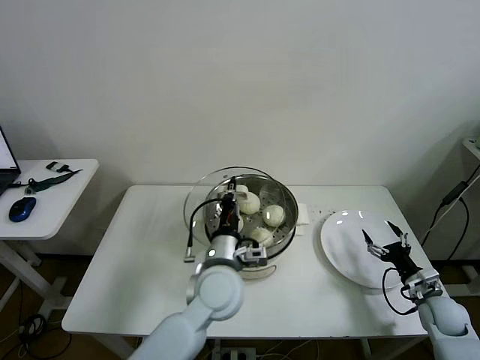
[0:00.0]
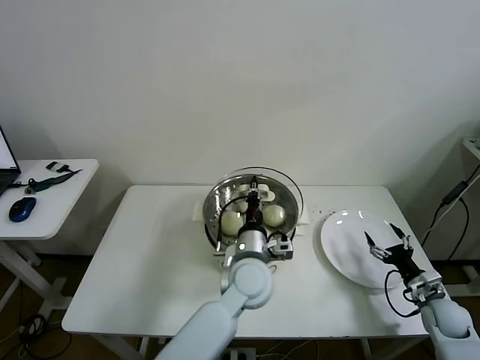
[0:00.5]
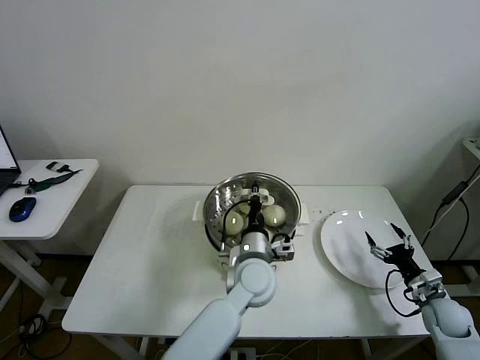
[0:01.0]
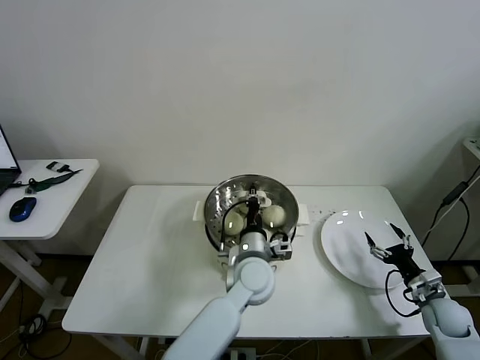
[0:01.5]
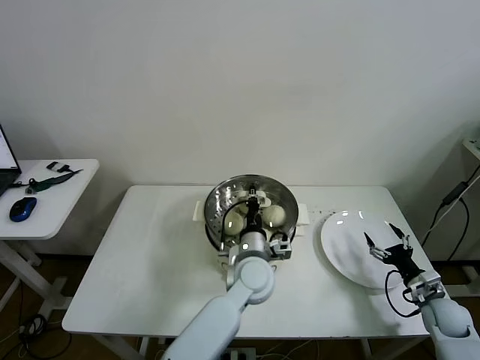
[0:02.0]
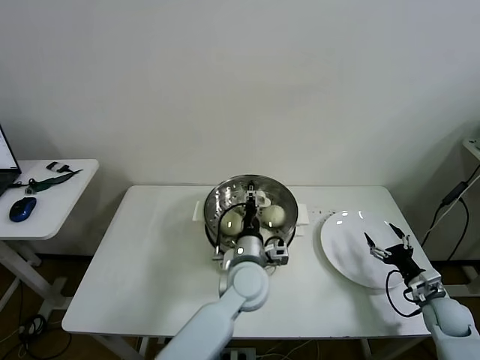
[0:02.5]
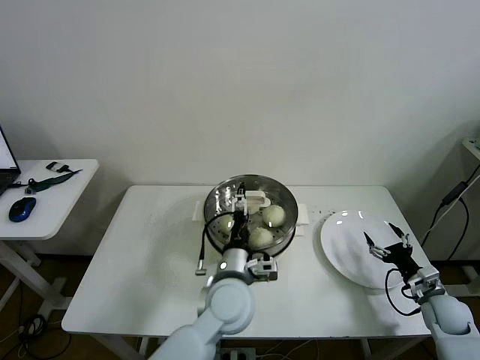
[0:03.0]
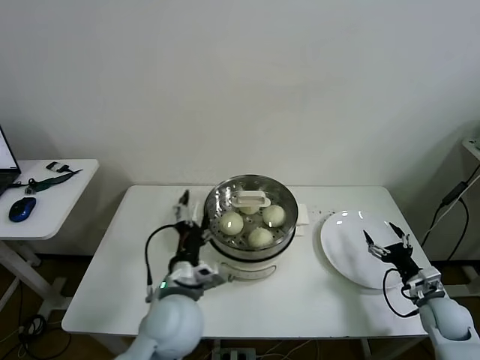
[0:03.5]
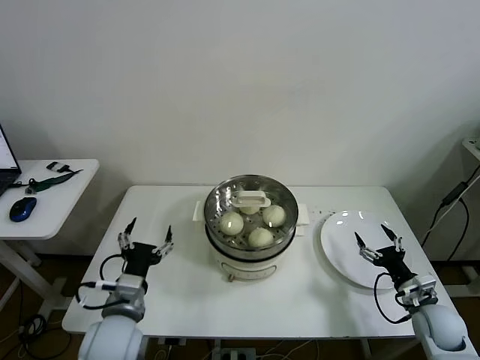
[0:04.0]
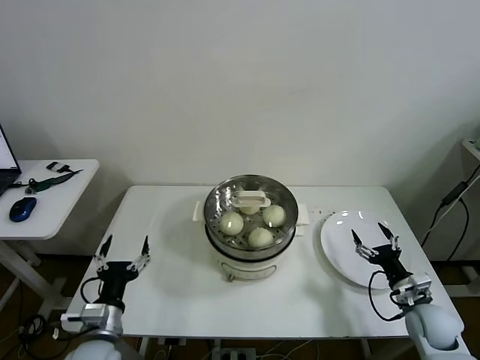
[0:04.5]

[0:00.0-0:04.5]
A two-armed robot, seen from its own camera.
Task of the whole recording: take steamed baozi put them in steamer then cover it.
Step, 0:00.0 to 0:02.5: Place the pot lid on the steamer with left gripper.
0:00.0 to 0:02.0: The left gripper shifts some 10 cm to the right, downward and forward.
0:02.0 to 0:04.5: The right gripper moves to the left, about 5 cm, while the left gripper goes approximately 35 cm to the left and backward, and opens up.

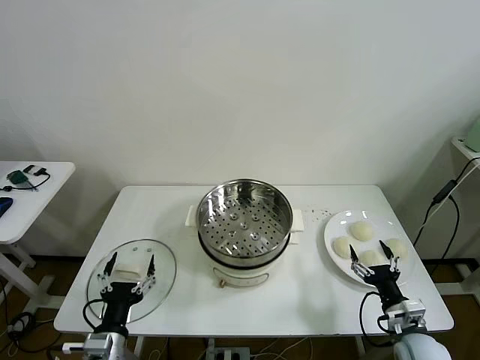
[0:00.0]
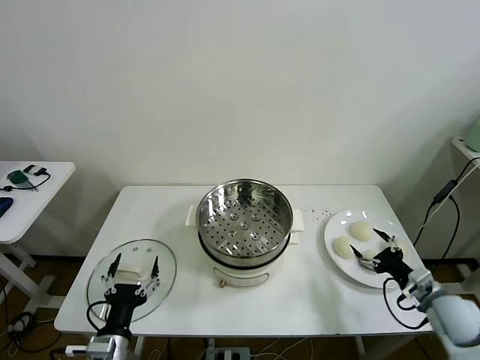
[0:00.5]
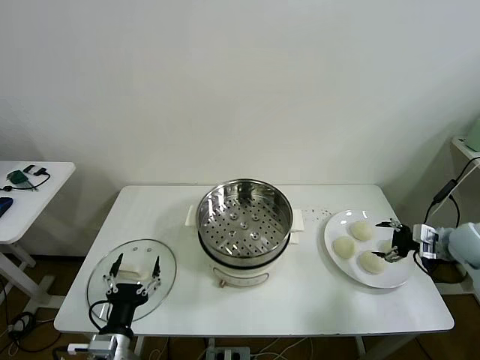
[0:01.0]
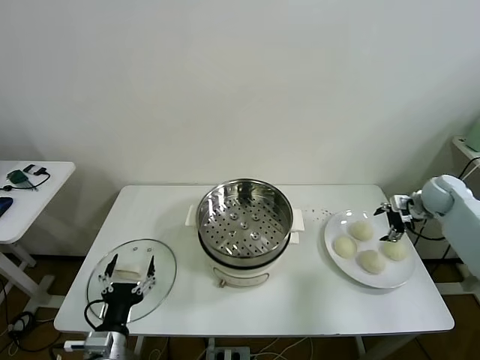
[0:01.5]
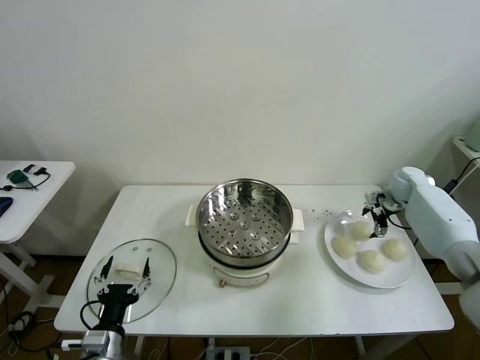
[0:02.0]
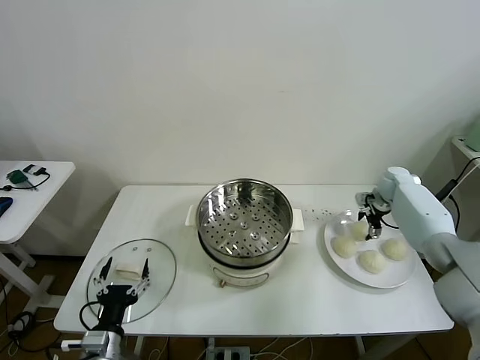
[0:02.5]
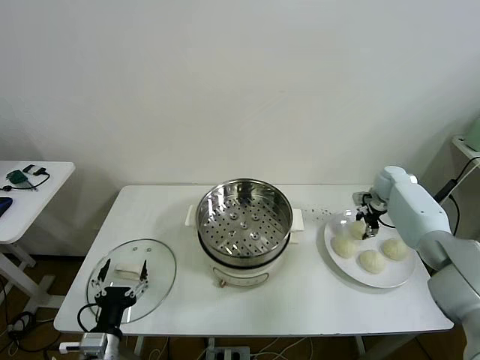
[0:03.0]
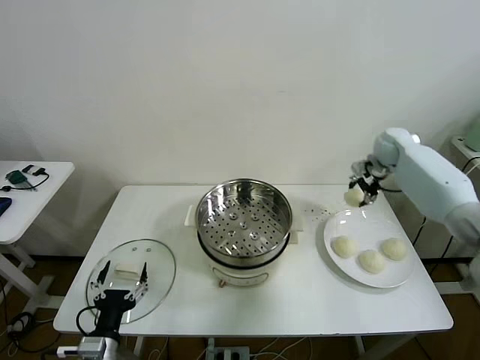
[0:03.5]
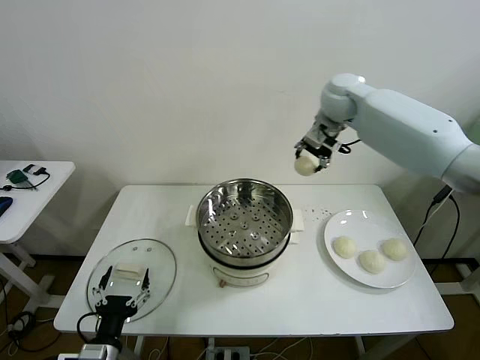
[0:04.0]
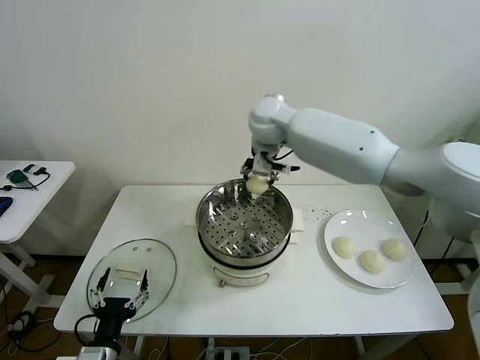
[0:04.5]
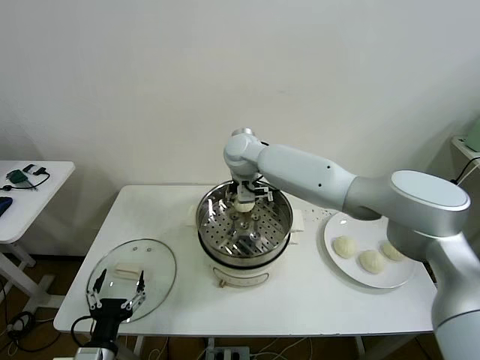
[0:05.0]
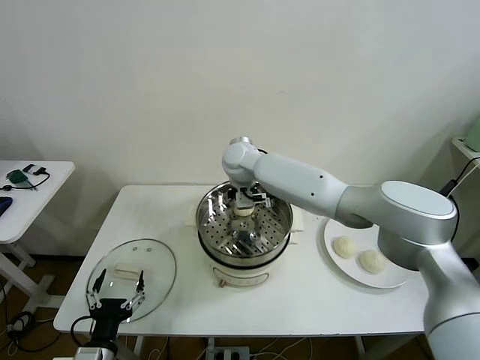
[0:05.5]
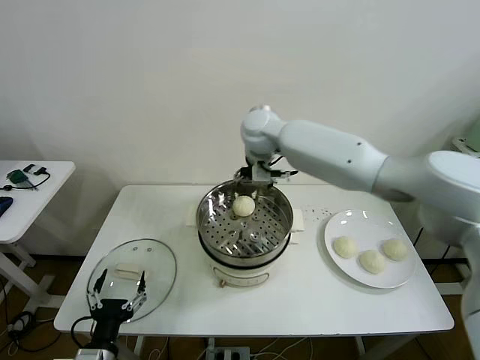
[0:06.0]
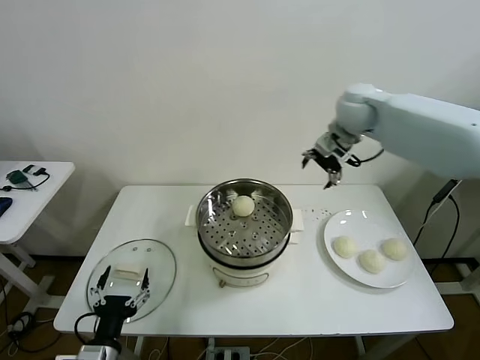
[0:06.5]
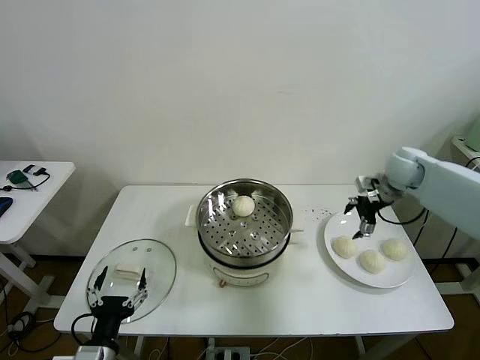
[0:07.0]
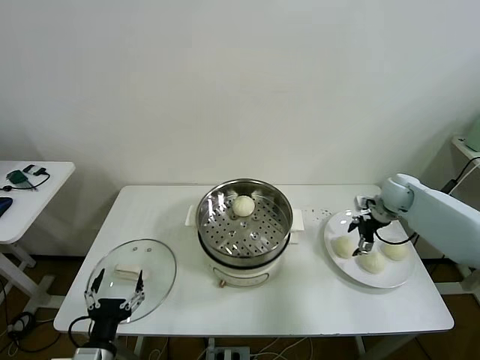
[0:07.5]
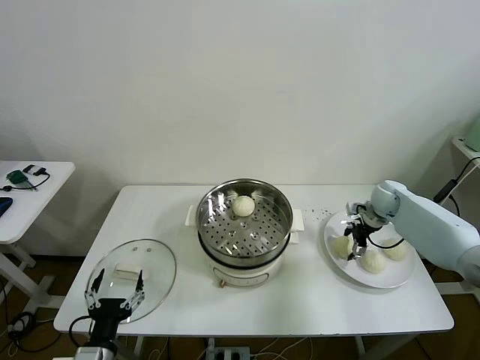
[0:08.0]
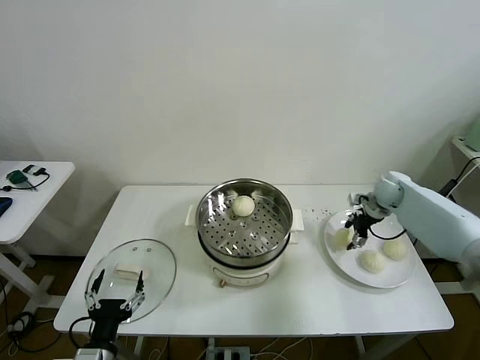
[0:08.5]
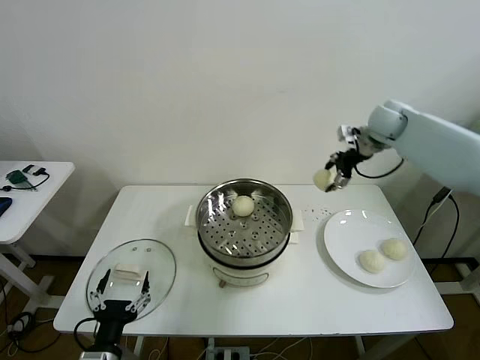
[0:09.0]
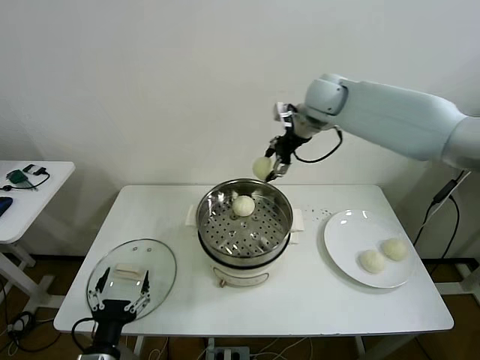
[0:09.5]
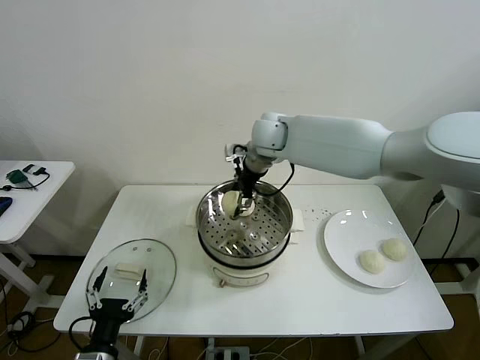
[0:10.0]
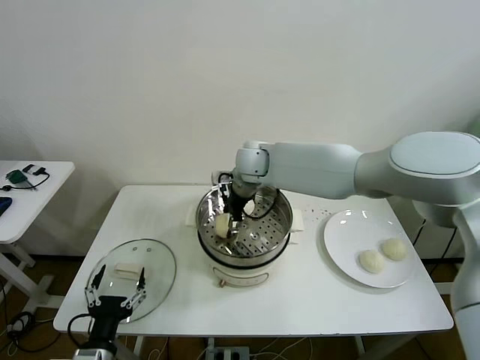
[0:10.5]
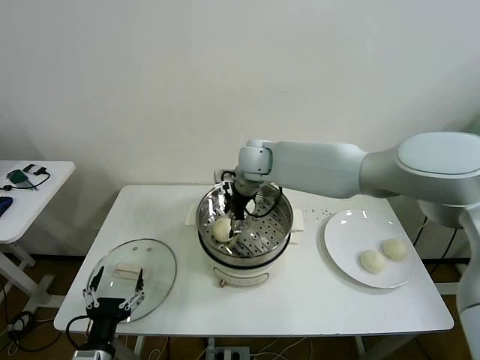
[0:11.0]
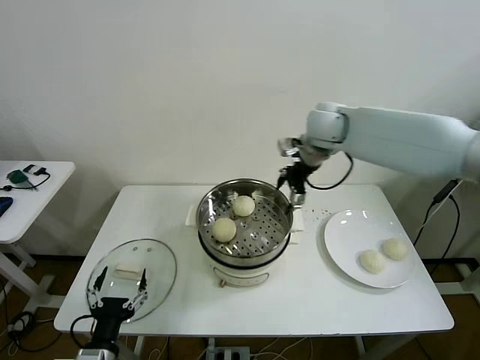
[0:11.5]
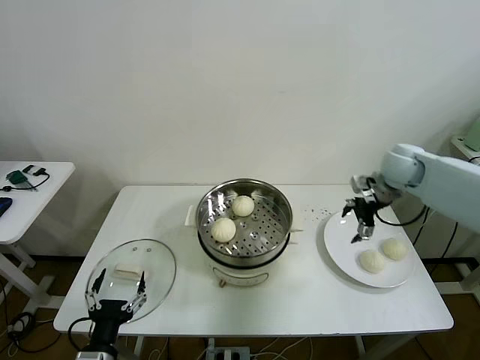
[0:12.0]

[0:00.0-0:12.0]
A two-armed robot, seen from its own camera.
Task of the whole recording: take steamed baozi put them in steamer then cover it.
Step, 0:00.0 to 0:02.5: Grasp the baozi in the plate with right gripper.
Step, 0:03.0 to 0:05.0: Place the baozi on the steamer with right gripper.
Step, 0:05.5 to 0:08.0: Grasp the baozi in the plate with right gripper.
Step, 0:08.5 to 0:10.5: Place the baozi on the steamer with right gripper.
0:02.0 to 0:04.0: The right gripper shifts approximately 40 cm to the left and upward, and closes its fingers.
0:04.0 to 0:06.0: The right gripper travels to the left and back again, approximately 15 cm each way, and opens.
0:06.0 to 0:08.0: The right gripper is displaced to the right and downward by approximately 40 cm, and closes its fingers.
0:08.0 to 0:10.0: The right gripper travels to the left and upward by some 40 cm.
0:10.0 to 0:12.0: The right gripper goes some 35 cm to the right, and opens up.

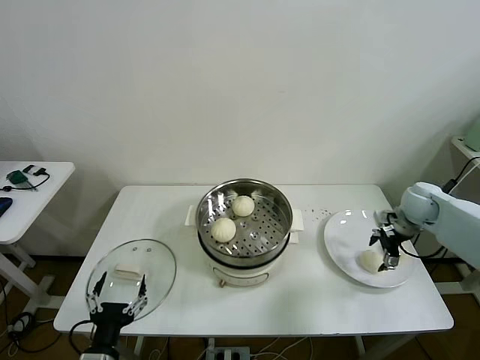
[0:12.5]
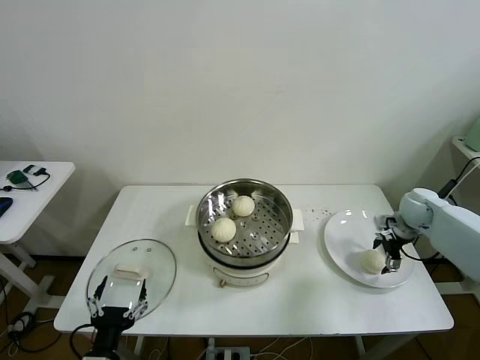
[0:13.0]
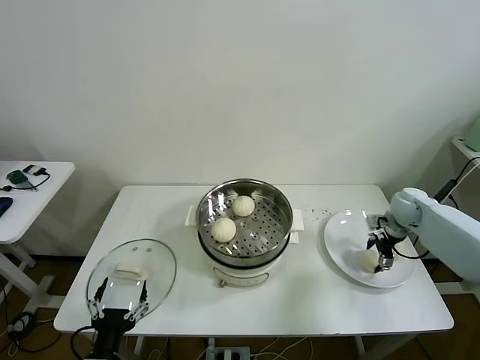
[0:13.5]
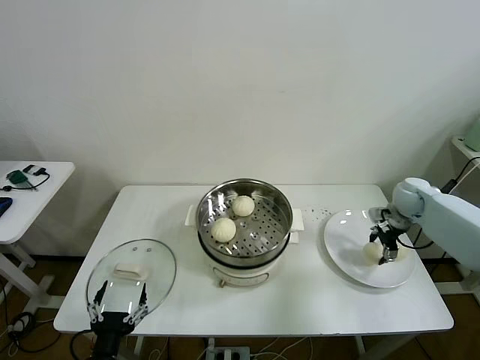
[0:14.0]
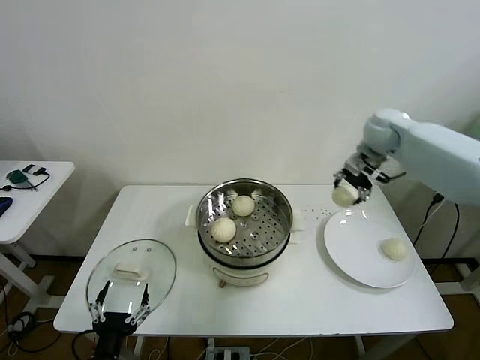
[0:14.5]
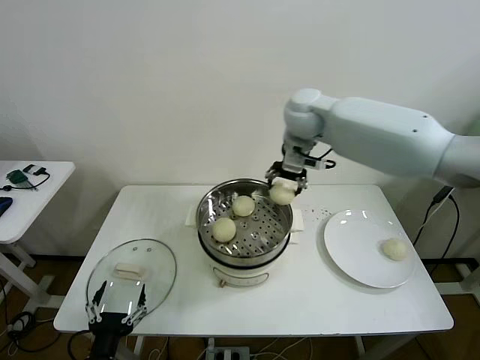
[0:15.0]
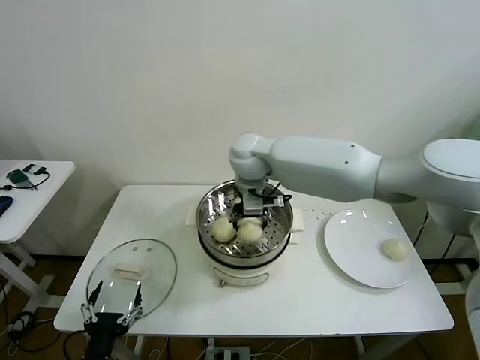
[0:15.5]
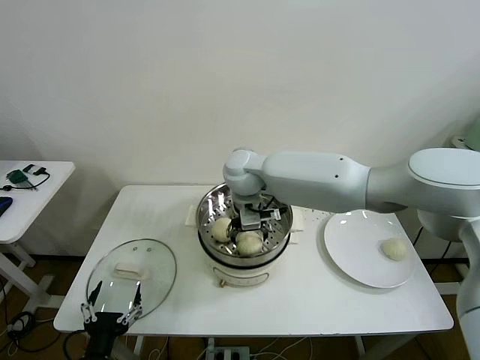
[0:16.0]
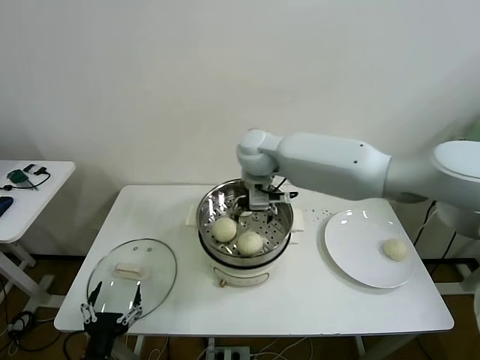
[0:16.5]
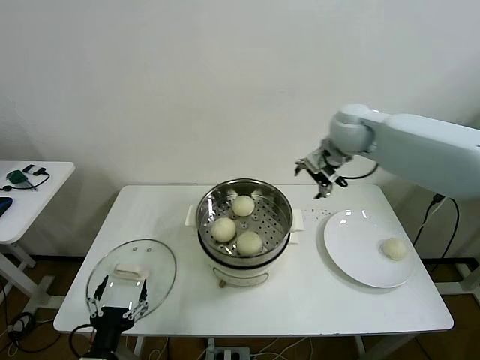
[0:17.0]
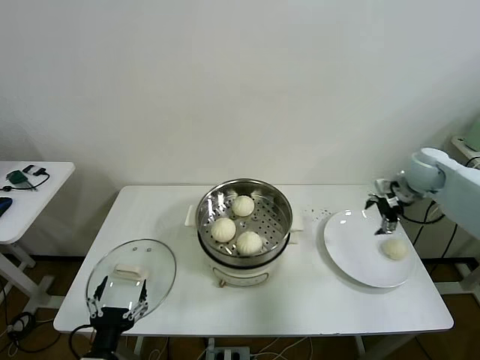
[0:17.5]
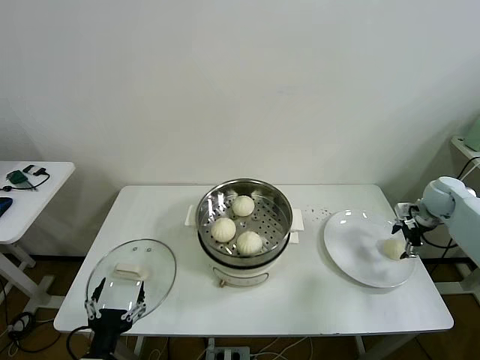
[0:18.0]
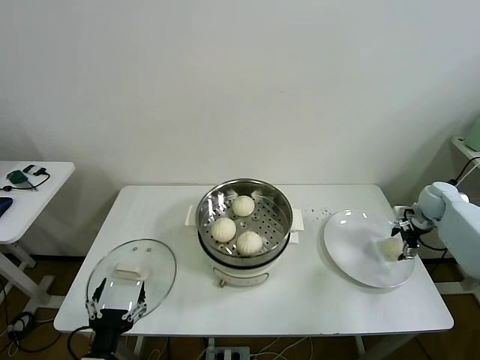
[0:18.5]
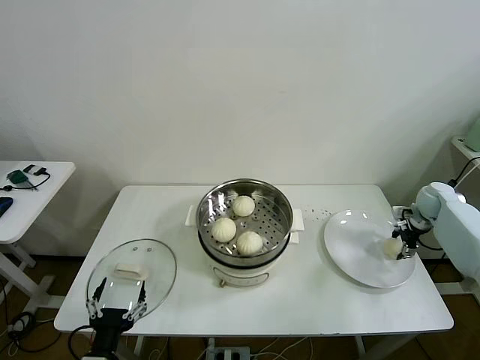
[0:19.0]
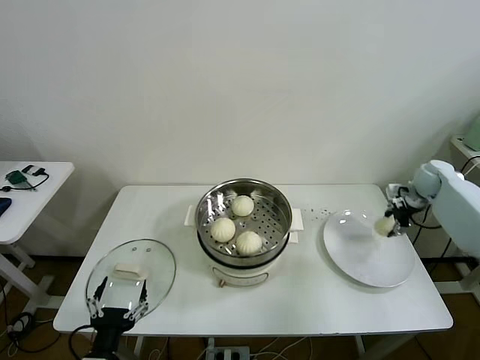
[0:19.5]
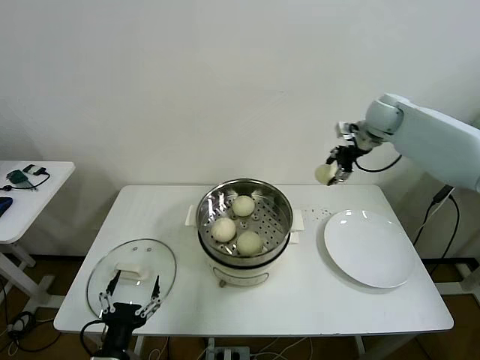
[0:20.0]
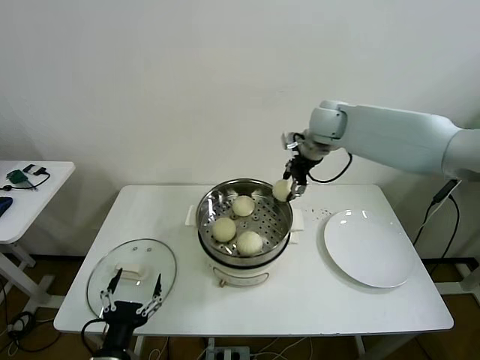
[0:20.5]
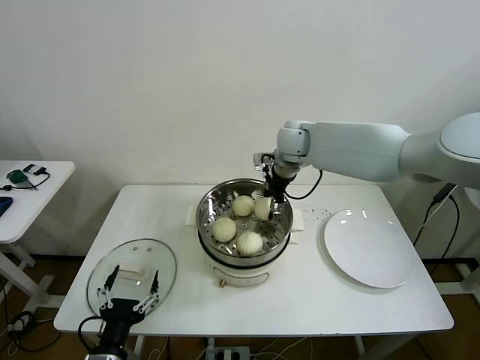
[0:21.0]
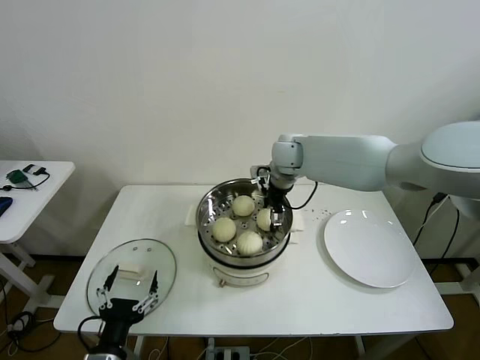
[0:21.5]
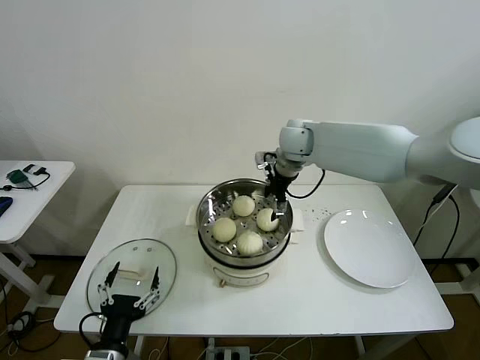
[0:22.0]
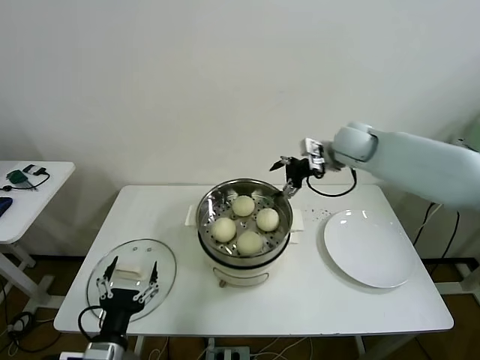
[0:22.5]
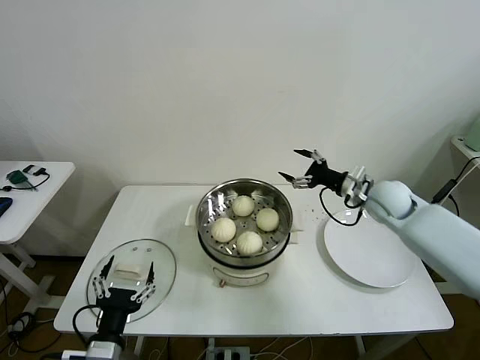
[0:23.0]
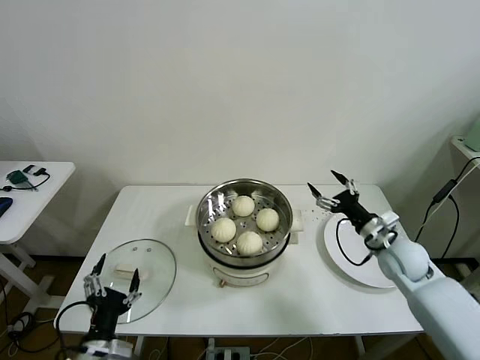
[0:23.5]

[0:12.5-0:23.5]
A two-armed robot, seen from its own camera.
Task of the whole recording: take steamed baozi put them in steamer then cover it.
Step, 0:14.0 to 0:16.0: Place the baozi on the steamer with right gripper.
Step, 0:16.5 to 0:19.0: Grasp the baozi in the plate with right gripper.
Step, 0:19.5 to 0:21.5: Place the baozi on the steamer with right gripper.
0:12.5 to 0:14.5: The right gripper shifts about 25 cm upward, to the left and forward, and closes up.
0:14.5 to 0:16.0: The right gripper is displaced to the left by roughly 30 cm, and opens up.
0:16.0 to 0:18.0: The right gripper goes roughly 50 cm to the right.
0:18.0 to 0:20.0: The right gripper is displaced upward, to the left and forward by roughly 30 cm, and closes its fingers.
0:20.0 to 0:21.5: The right gripper is displaced to the left and downward by roughly 25 cm, and opens up.
0:21.5 to 0:23.5: The right gripper shifts roughly 35 cm to the right, backward and downward.
